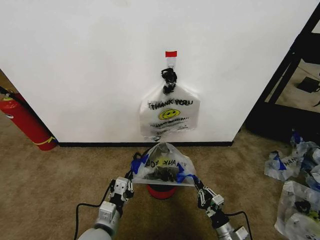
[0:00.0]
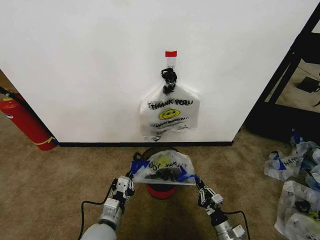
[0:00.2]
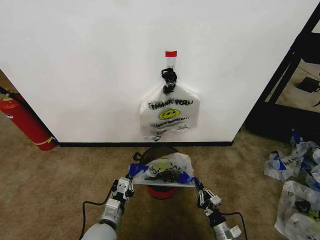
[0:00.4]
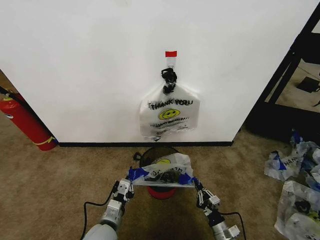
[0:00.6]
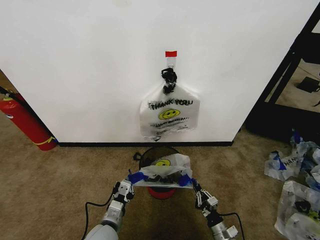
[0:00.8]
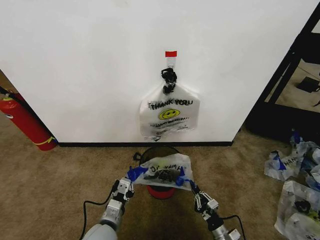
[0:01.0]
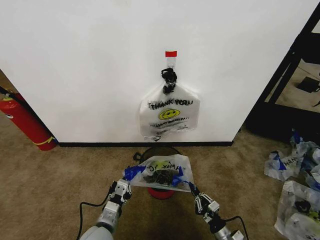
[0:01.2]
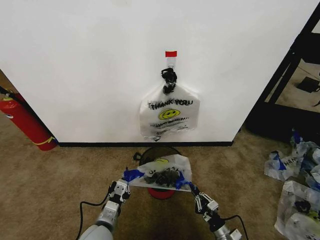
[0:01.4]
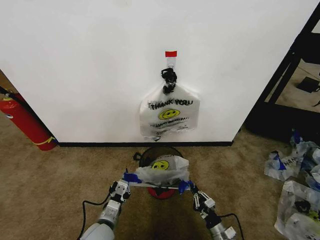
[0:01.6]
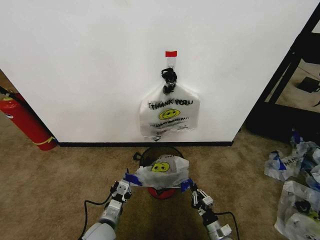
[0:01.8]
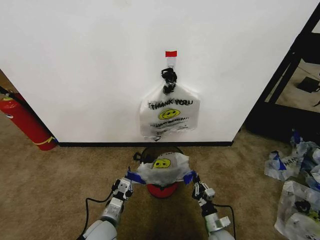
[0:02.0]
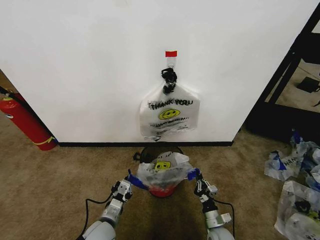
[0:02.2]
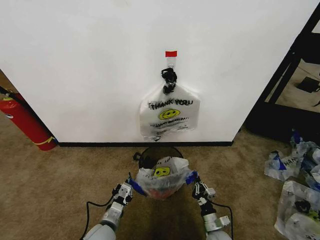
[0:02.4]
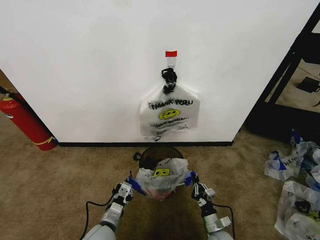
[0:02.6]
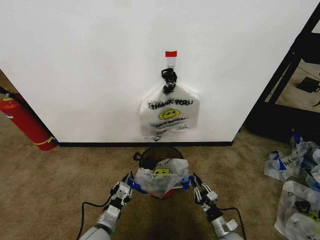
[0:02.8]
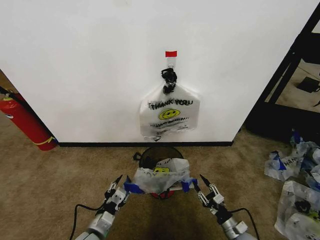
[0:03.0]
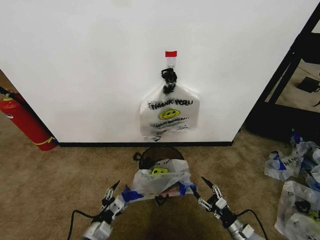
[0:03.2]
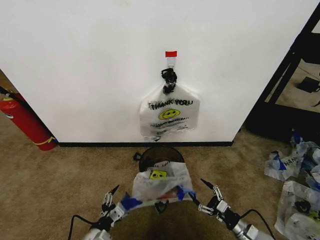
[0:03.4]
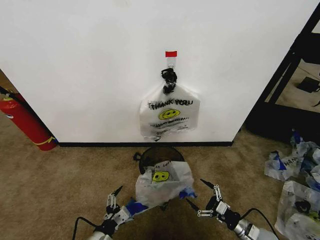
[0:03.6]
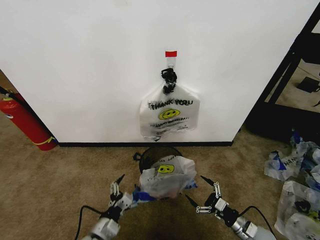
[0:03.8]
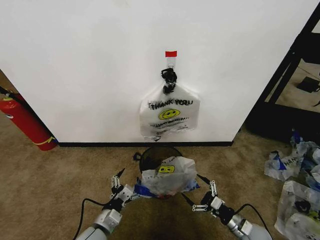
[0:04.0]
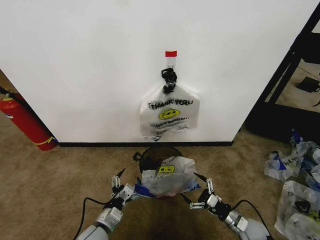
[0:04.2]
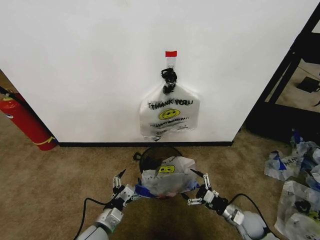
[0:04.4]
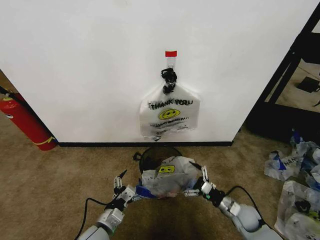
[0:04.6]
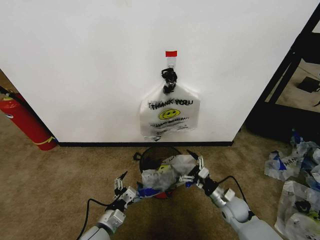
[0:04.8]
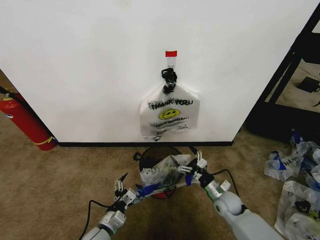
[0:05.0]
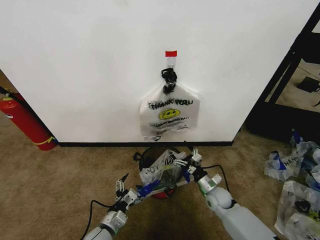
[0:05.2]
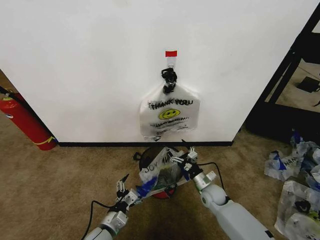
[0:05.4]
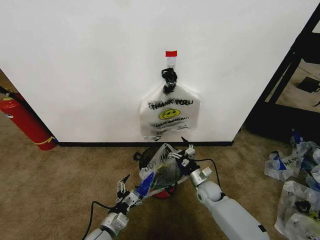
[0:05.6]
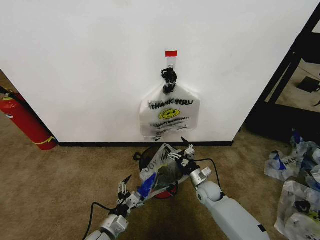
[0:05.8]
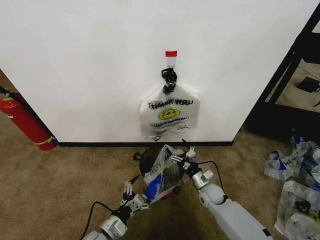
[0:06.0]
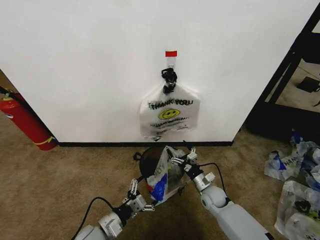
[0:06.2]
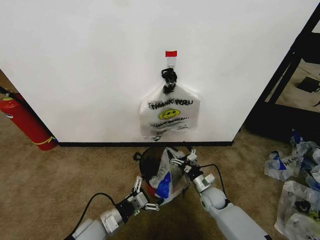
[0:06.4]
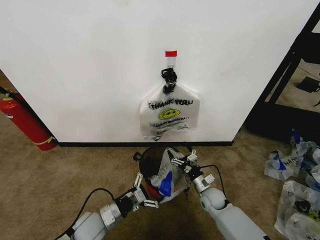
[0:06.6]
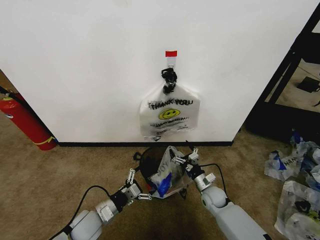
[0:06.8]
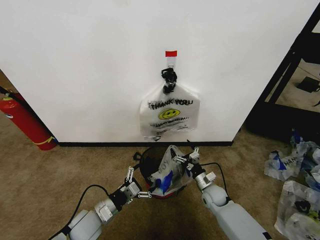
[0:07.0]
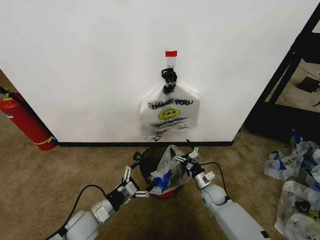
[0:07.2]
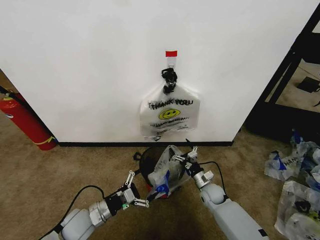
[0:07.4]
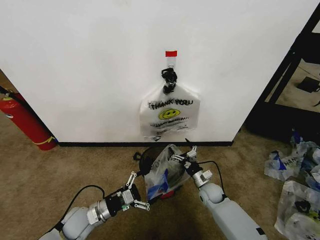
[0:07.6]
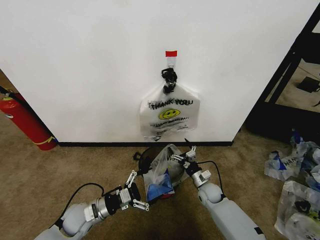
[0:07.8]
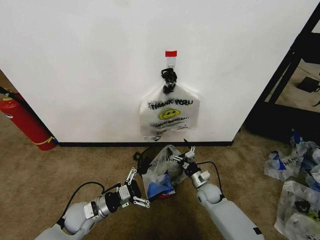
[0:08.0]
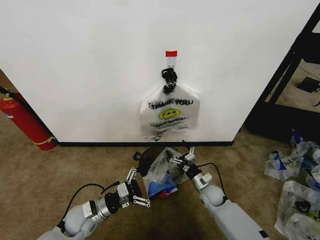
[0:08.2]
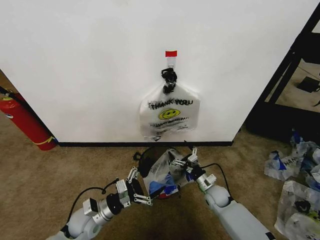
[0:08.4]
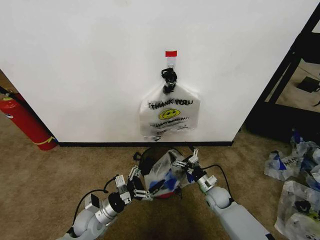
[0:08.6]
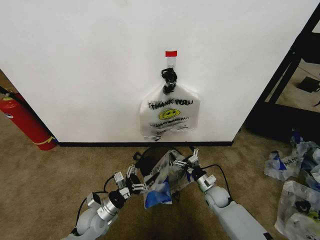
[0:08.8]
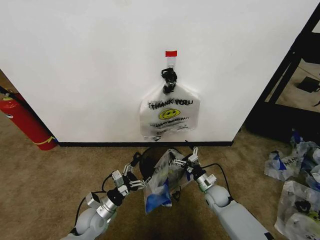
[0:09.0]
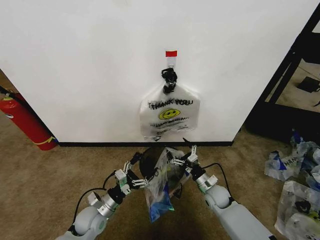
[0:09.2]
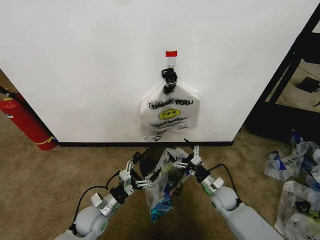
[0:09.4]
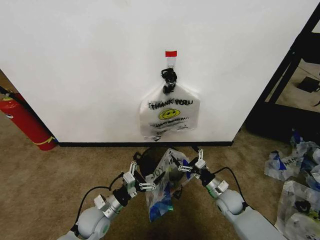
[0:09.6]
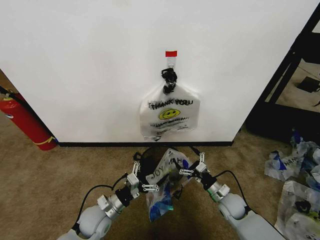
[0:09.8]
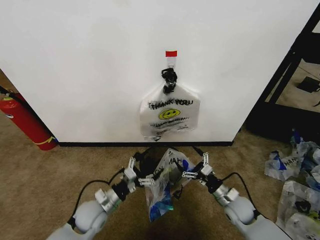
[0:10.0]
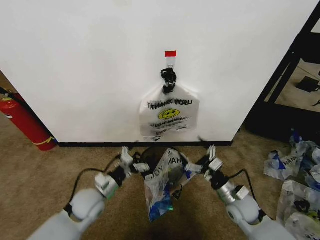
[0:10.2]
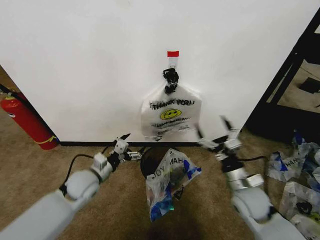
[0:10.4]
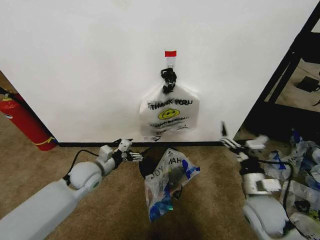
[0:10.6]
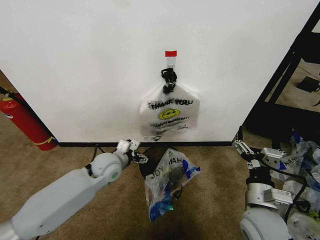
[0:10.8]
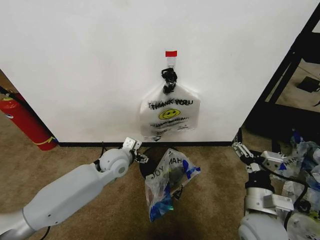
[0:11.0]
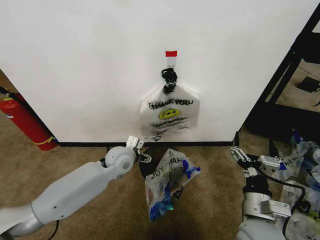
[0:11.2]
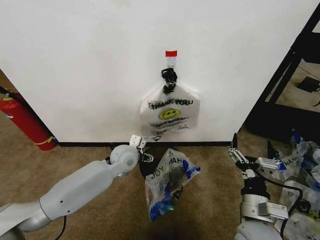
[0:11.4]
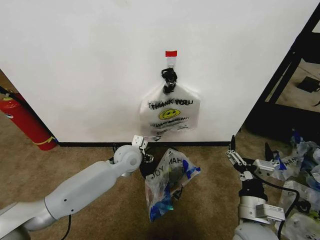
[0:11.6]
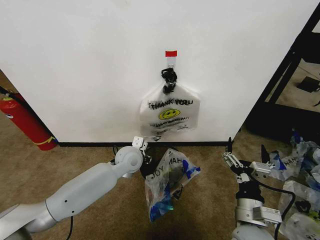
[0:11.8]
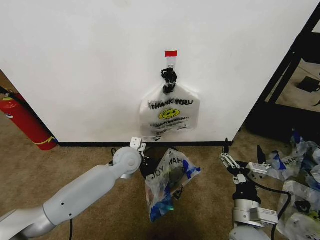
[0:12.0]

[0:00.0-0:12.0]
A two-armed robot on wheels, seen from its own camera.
Task of the whole recording: Pick up the garbage bag from the wall and place it over the trash bin.
0:00.0 to 0:01.6: The grippers both shift downward by roughly 5 cm.
0:01.6 to 0:03.0: The left gripper opens. Meanwhile the right gripper opens its fingers.
0:03.0 to 0:04.4: The left gripper opens. The right gripper goes some 10 cm upward and forward, and opens up.
0:04.4 to 0:06.0: The right gripper is displaced to the left and forward by some 15 cm.
0:06.0 to 0:07.6: The left gripper is displaced forward and to the left by about 10 cm.
0:07.6 to 0:09.0: The left gripper moves about 5 cm.
0:09.0 to 0:10.4: The left gripper goes roughly 15 cm upward and forward. Meanwhile the right gripper goes some 20 cm upward and backward.
0:10.4 to 0:12.0: The right gripper travels backward and to the left by roughly 15 cm; the left gripper shifts approximately 15 cm to the right and forward, and closes its fingers.

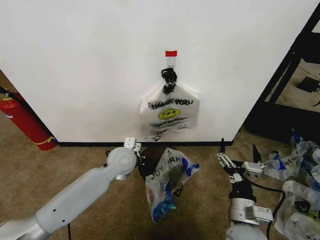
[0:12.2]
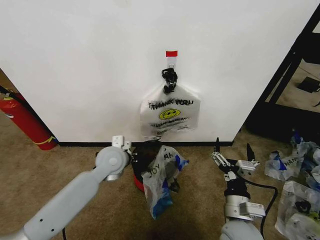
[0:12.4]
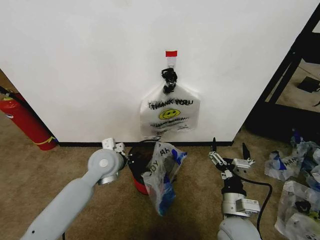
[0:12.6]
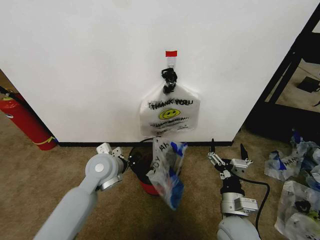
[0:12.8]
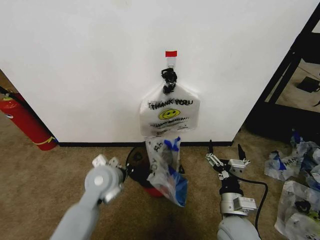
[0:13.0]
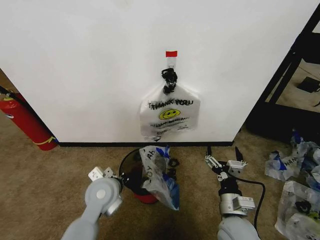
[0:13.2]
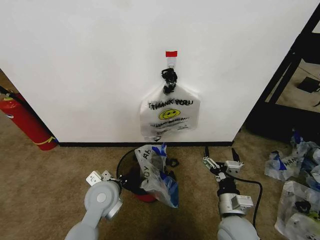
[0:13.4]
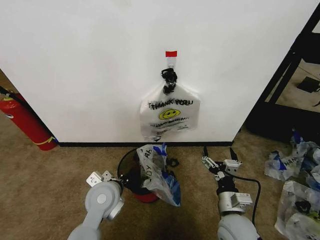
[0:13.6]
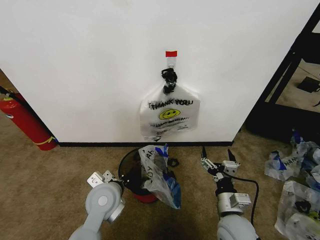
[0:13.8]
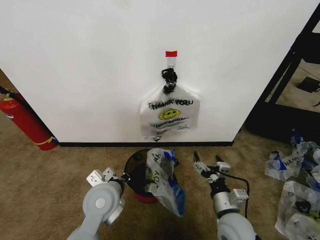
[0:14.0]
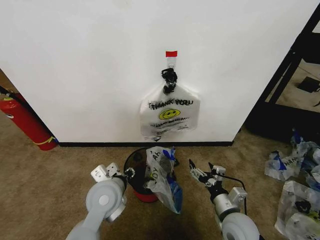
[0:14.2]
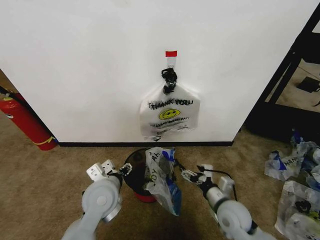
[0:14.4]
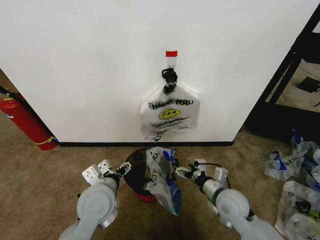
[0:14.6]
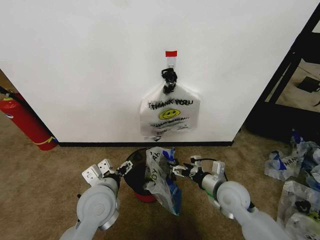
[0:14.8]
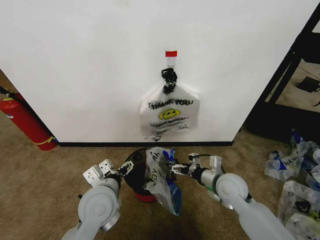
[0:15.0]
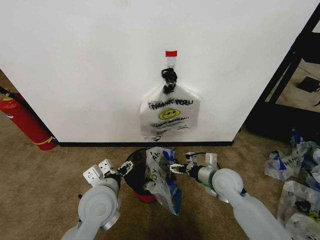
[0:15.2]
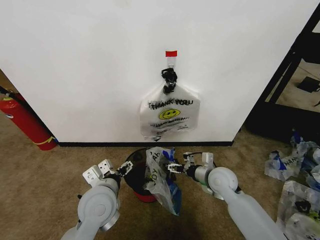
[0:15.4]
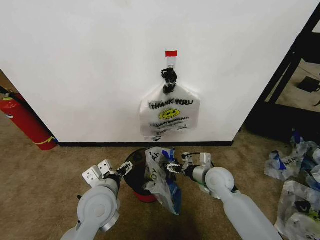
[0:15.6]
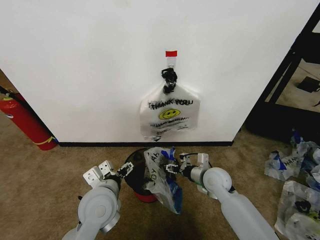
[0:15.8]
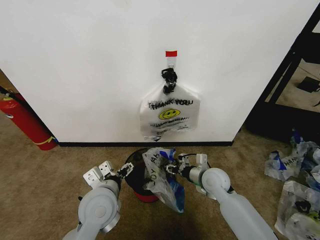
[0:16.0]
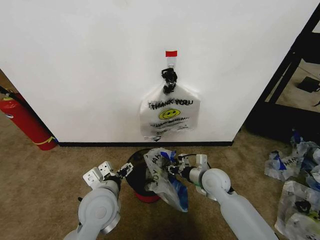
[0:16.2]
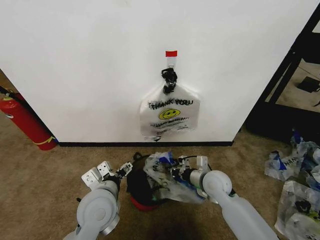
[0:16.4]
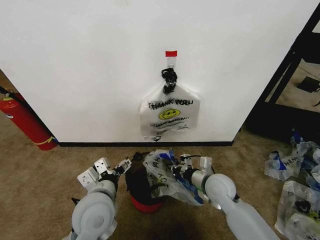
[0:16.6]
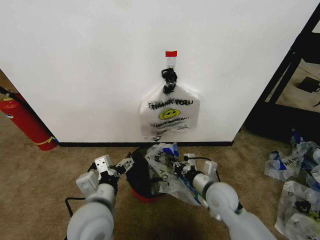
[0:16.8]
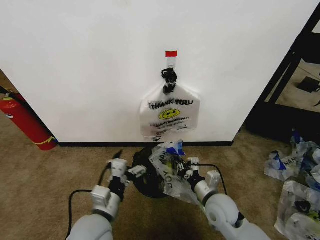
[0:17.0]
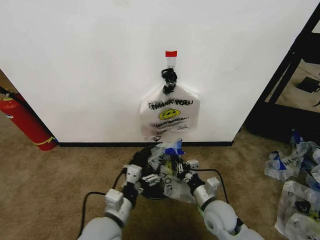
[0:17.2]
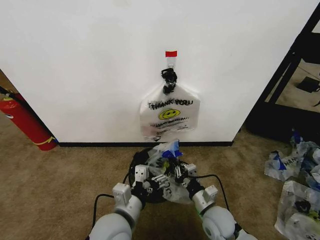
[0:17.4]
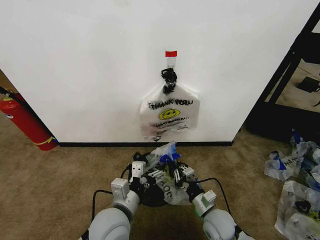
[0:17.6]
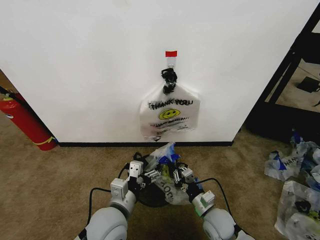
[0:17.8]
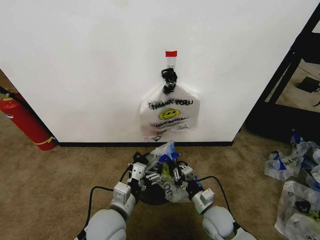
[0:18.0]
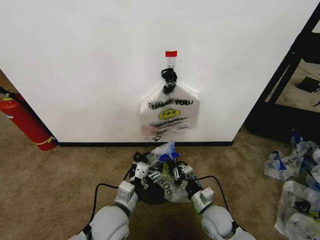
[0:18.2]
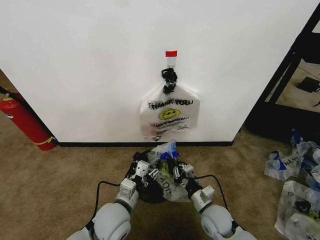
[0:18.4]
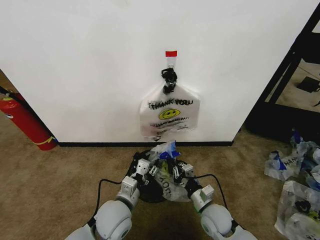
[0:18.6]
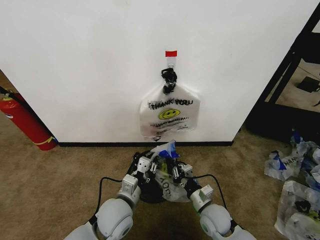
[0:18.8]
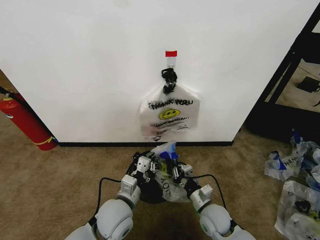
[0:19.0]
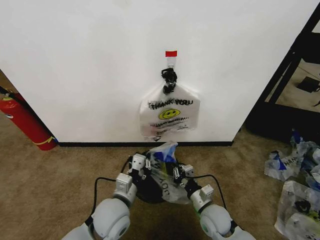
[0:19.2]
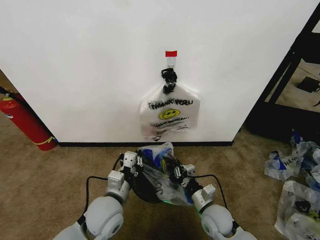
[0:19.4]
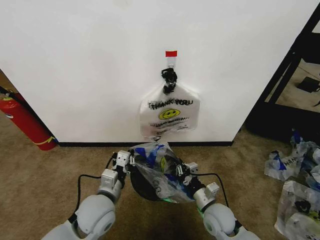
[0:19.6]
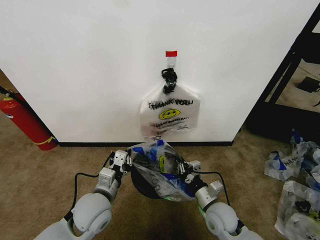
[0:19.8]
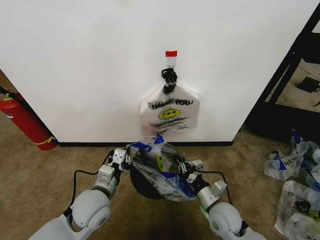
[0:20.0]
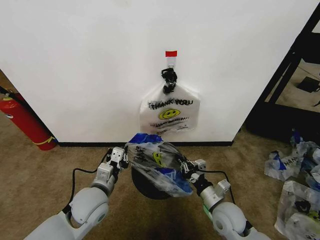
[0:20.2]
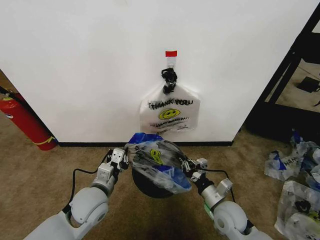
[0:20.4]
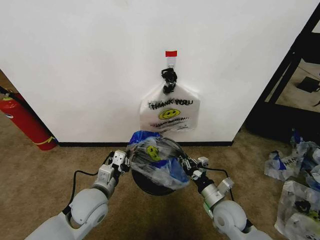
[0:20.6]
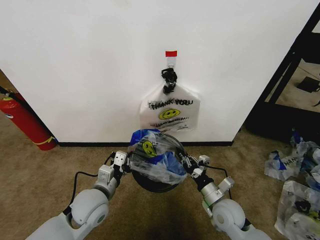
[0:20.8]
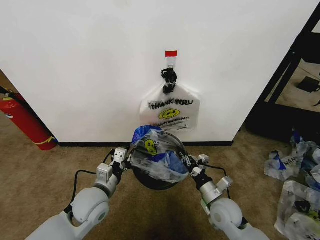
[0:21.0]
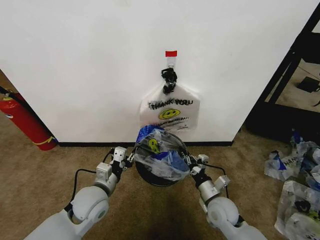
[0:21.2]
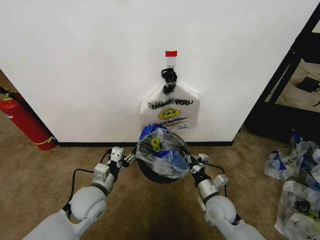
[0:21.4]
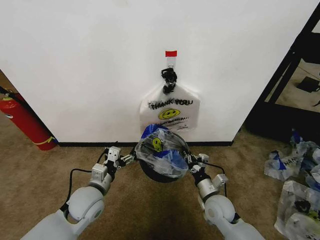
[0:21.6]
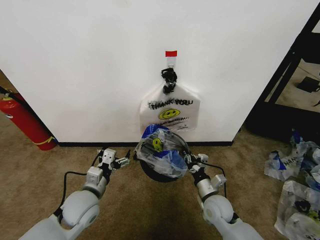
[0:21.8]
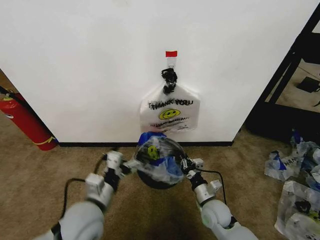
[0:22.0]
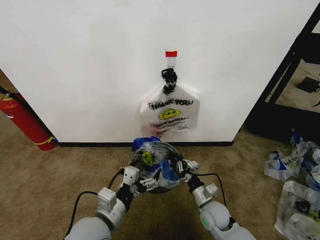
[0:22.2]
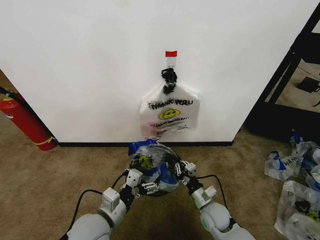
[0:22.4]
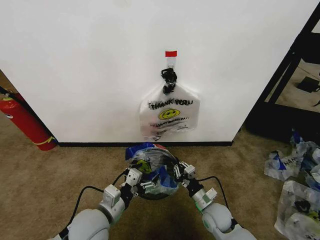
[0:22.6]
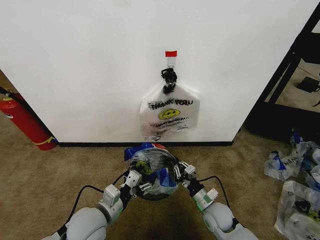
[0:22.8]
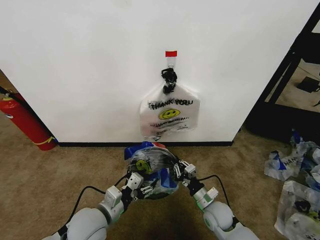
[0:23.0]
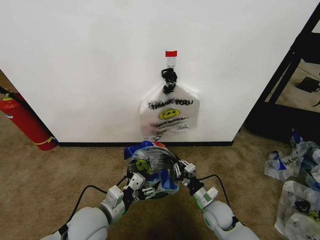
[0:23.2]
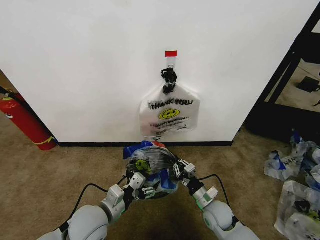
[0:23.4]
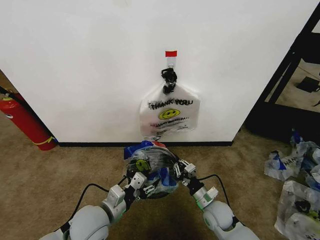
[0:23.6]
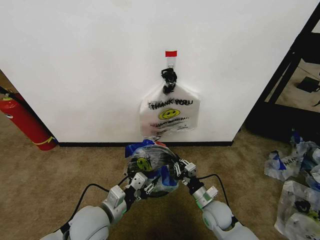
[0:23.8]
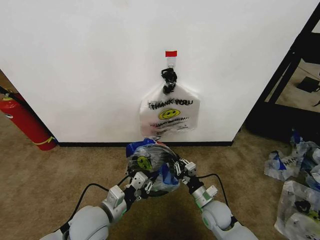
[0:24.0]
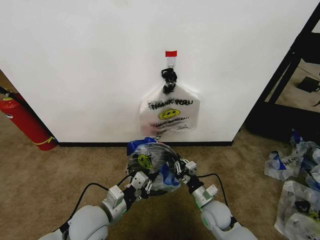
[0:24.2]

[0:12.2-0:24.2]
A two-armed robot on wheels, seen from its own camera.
Task of the whole recording: Pick up the garbage bag from the wall and place it over the trash bin.
0:12.2 to 0:13.8: The right gripper changes place by approximately 5 cm. The left gripper travels backward by about 10 cm.
0:13.8 to 0:15.2: The right gripper shifts some 15 cm forward. Meanwhile the left gripper opens its fingers.
0:15.2 to 0:16.6: The right gripper closes.
0:16.6 to 0:18.2: The left gripper shifts roughly 5 cm downward; the right gripper is displaced downward and backward by some 10 cm.
0:18.2 to 0:19.8: The left gripper goes about 5 cm to the left, and closes.
0:19.8 to 0:21.2: The left gripper opens up.
0:21.2 to 0:22.6: The left gripper is displaced backward by roughly 5 cm, and opens. Meanwhile the right gripper shifts some 5 cm downward.
0:22.6 to 0:24.2: The left gripper closes its fingers.
